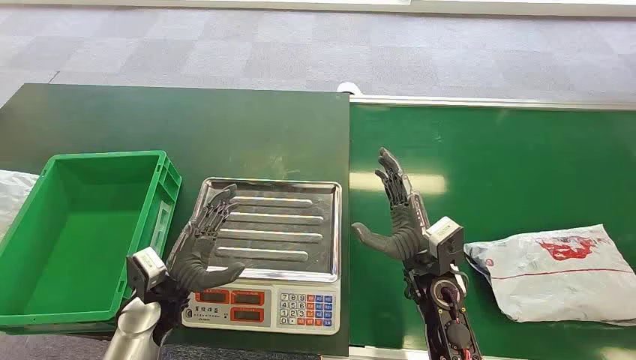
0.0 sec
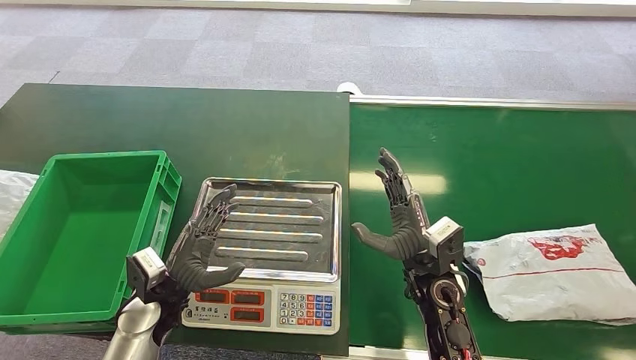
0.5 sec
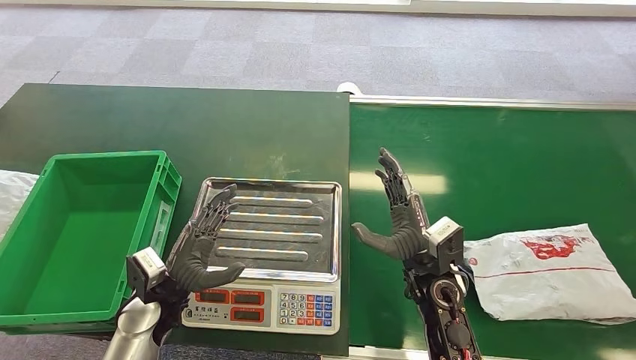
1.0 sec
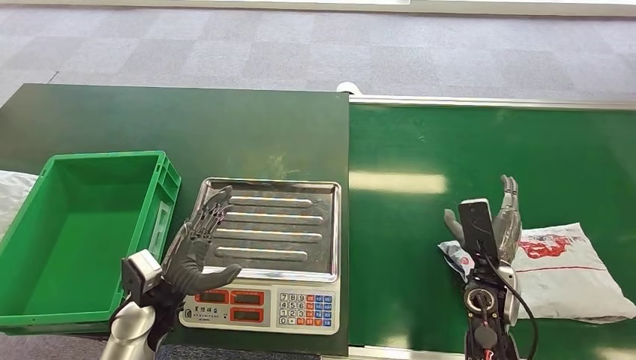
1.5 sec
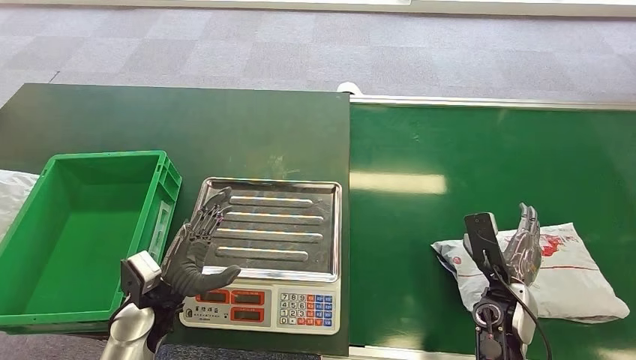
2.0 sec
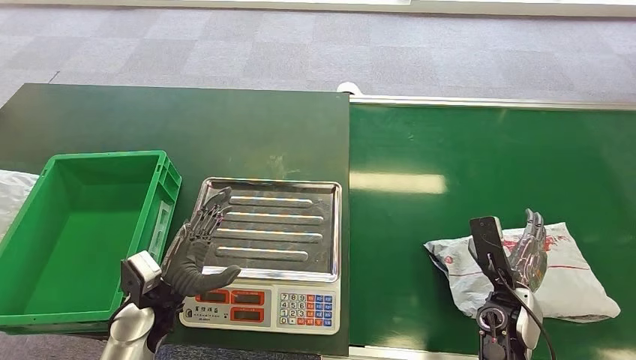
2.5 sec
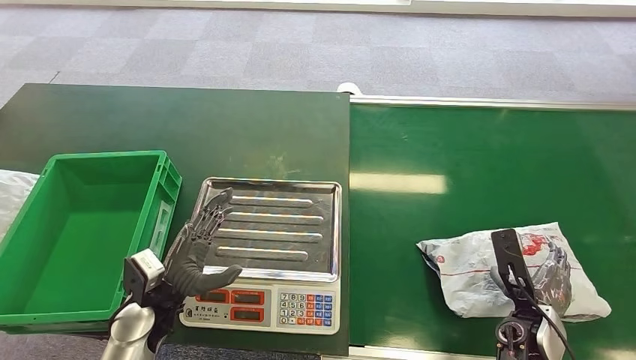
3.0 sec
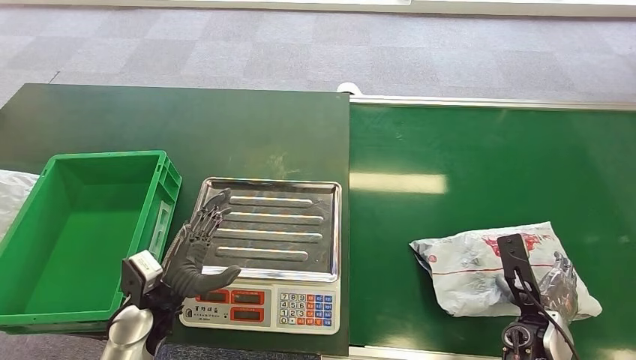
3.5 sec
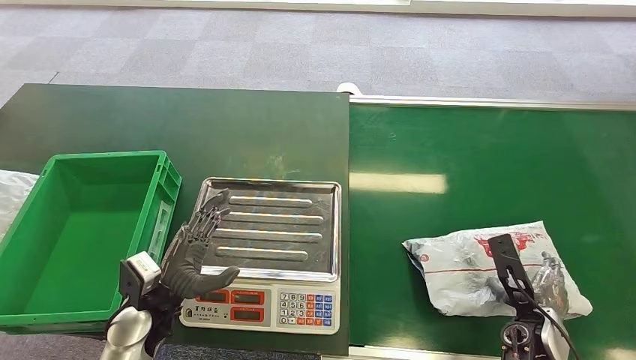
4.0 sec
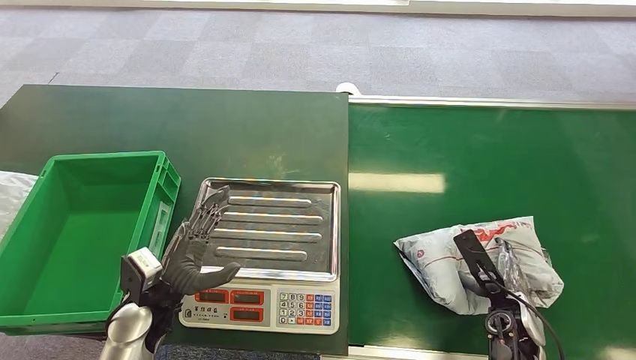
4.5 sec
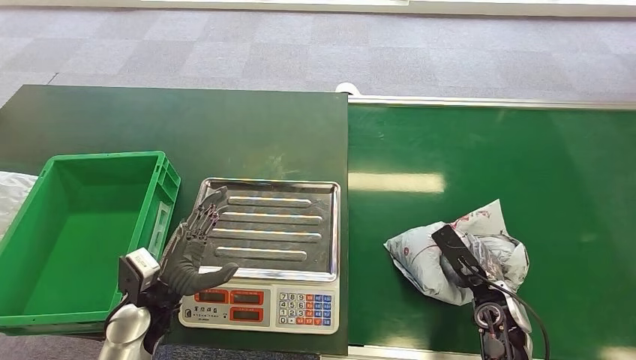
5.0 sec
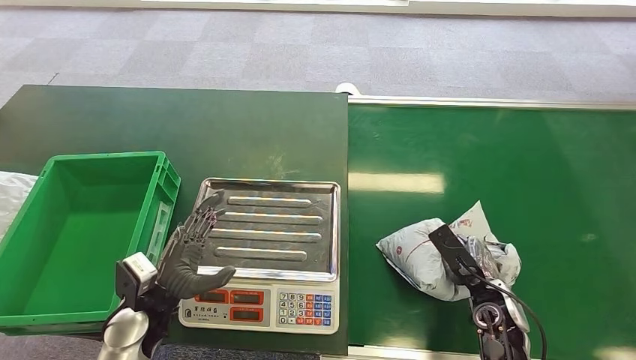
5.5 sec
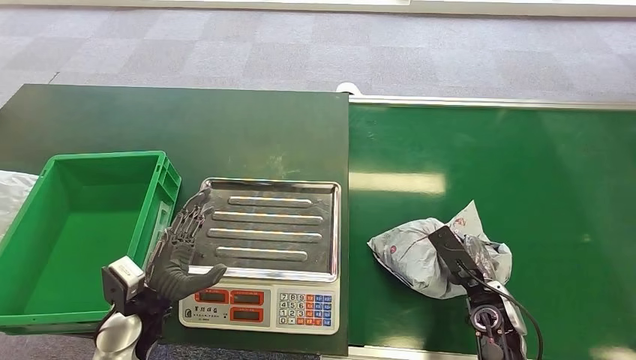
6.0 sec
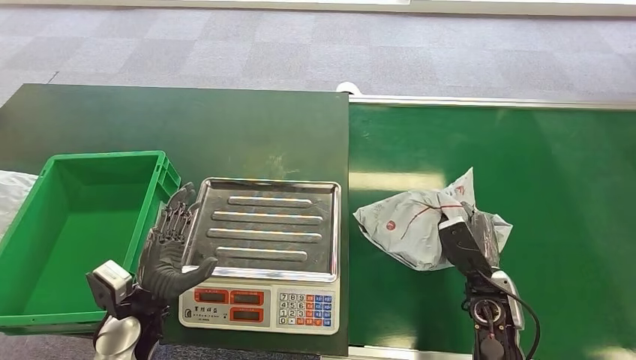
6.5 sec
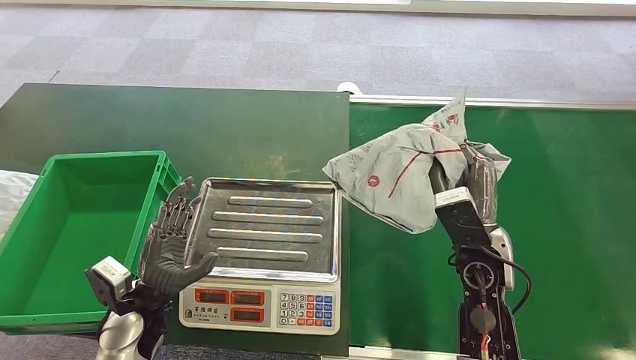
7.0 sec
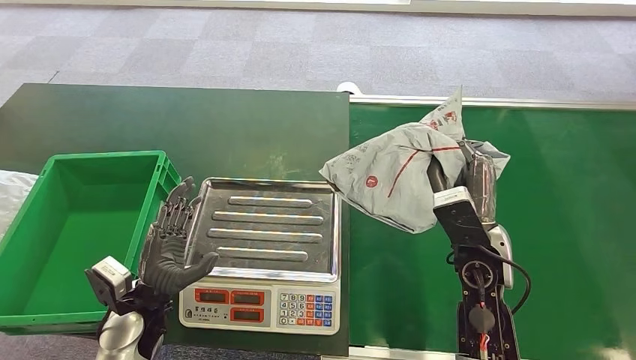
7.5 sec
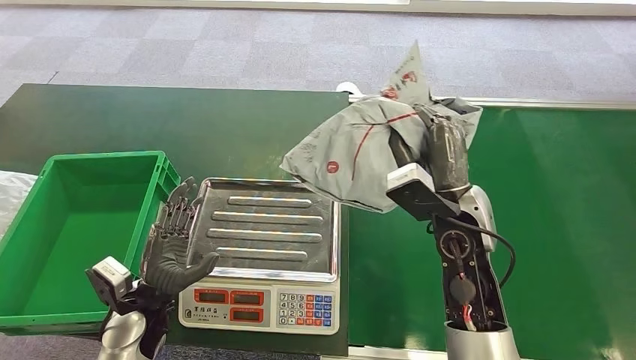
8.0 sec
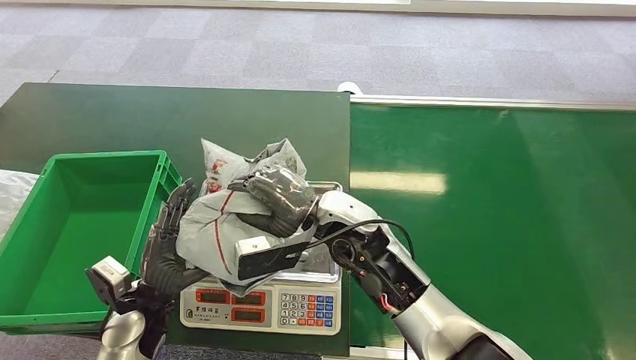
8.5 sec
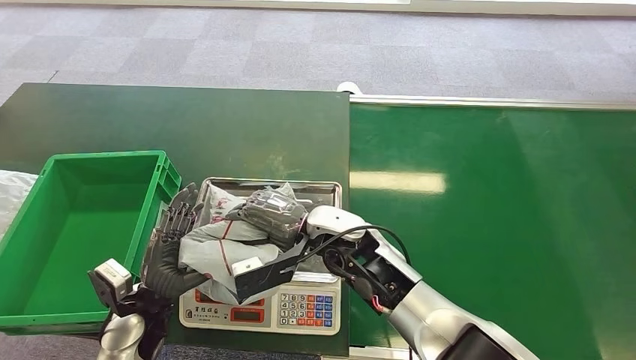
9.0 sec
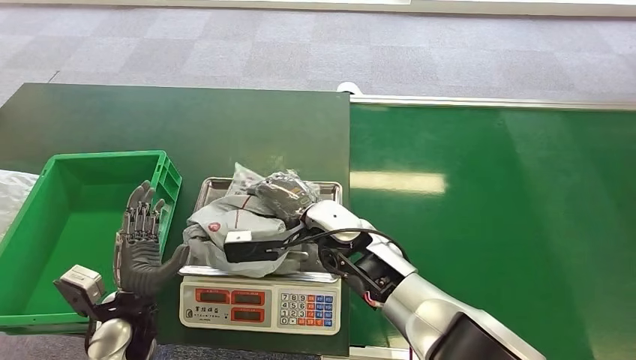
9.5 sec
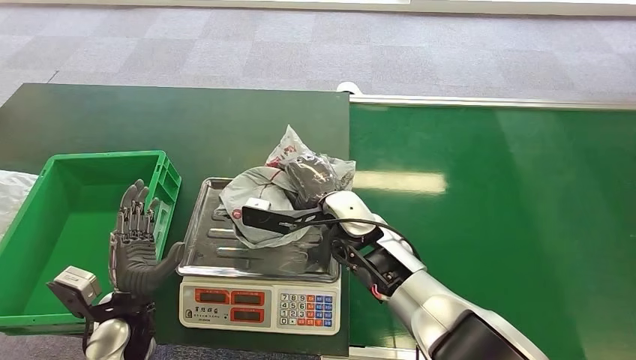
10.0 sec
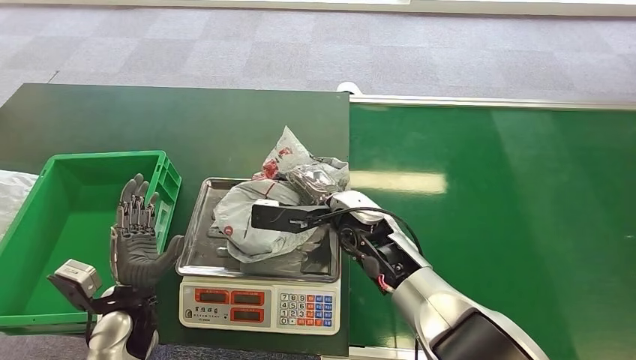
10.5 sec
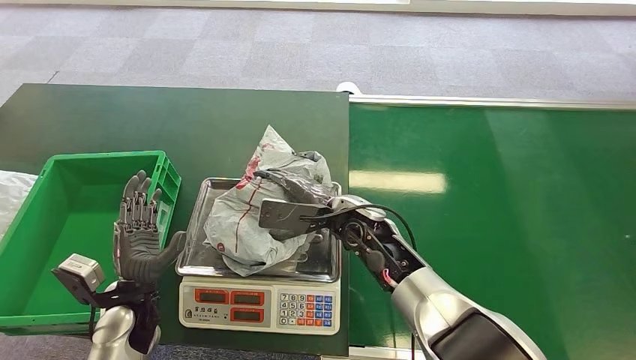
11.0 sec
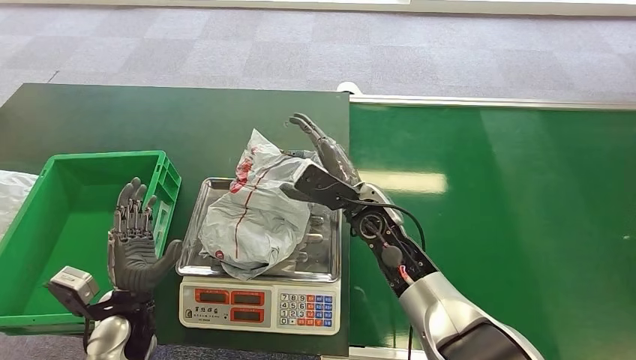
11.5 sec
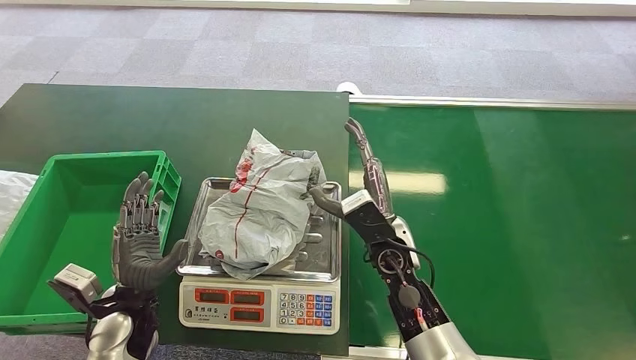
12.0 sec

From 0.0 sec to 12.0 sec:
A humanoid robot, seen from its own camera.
Task of the whole recording: Weigh the package on the weighing device and place it in the left basket.
Step, from 0.0 sec to 6.5 sec: Pick up the package from the conveyor belt.
From 2.0 sec to 4.0 sec: The right hand moves roughly 5 cm.
From 4.0 sec to 6.0 sec: The right hand changes place by some 5 cm.
From 6.0 sec to 8.0 sec: The right hand shifts approximately 20 cm upward and to the left.
From 10.0 sec to 12.0 sec: The right hand moves roughly 5 cm.

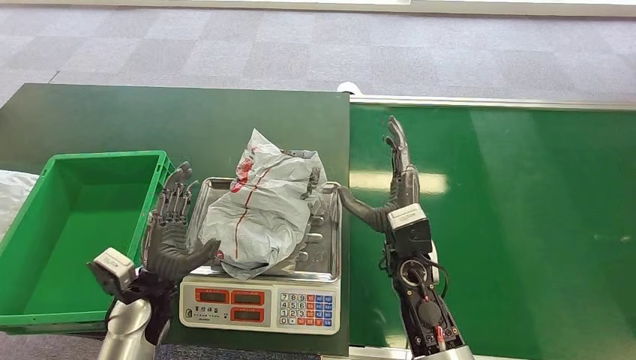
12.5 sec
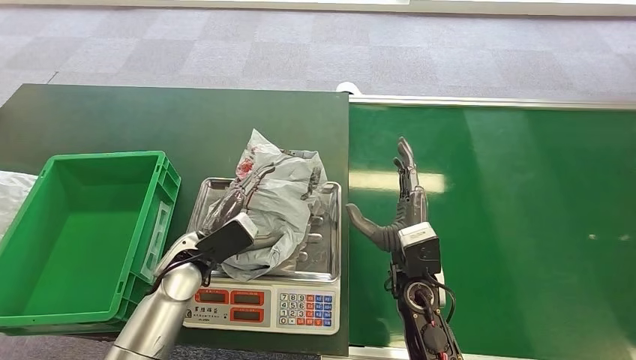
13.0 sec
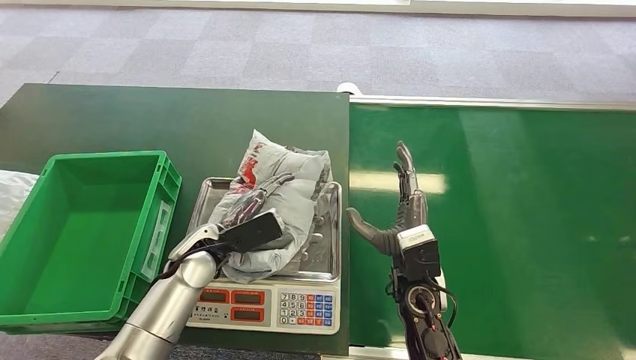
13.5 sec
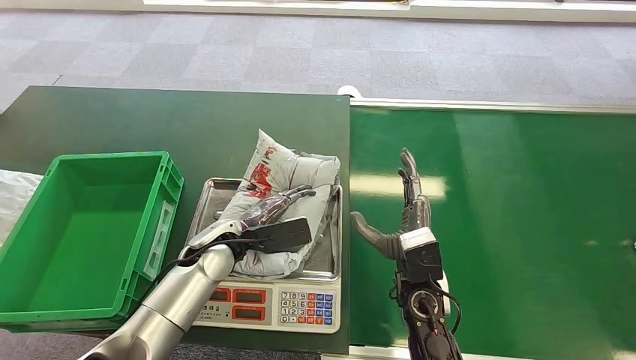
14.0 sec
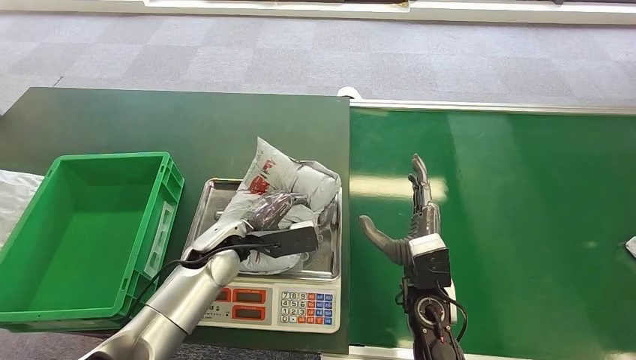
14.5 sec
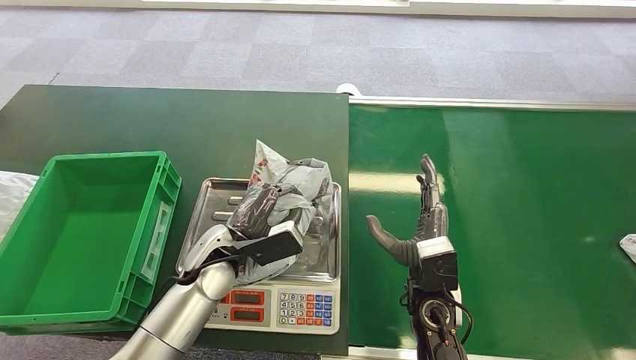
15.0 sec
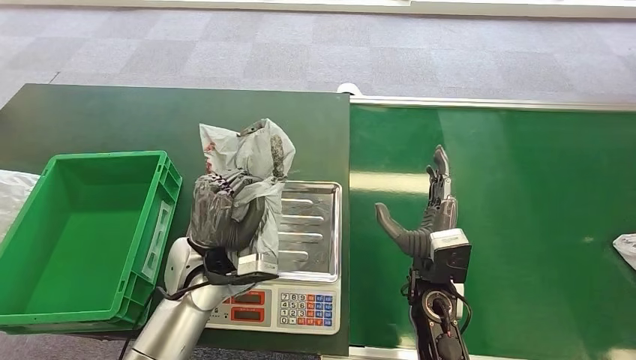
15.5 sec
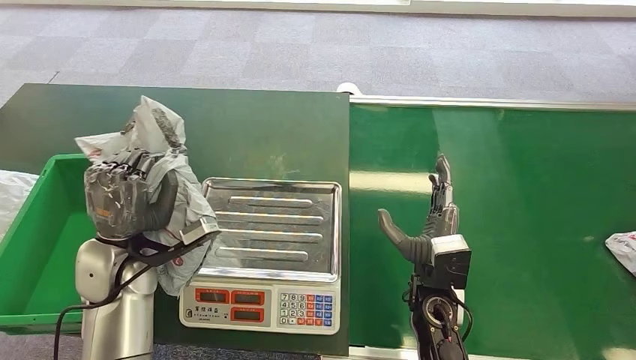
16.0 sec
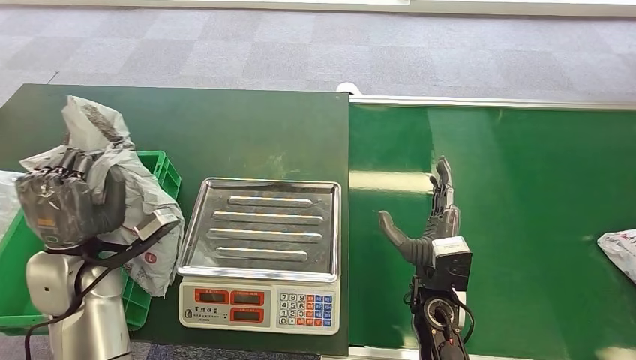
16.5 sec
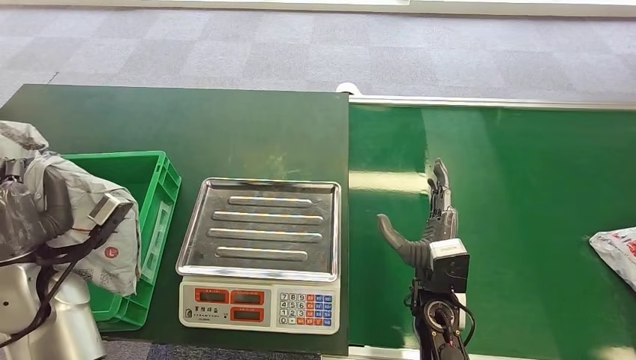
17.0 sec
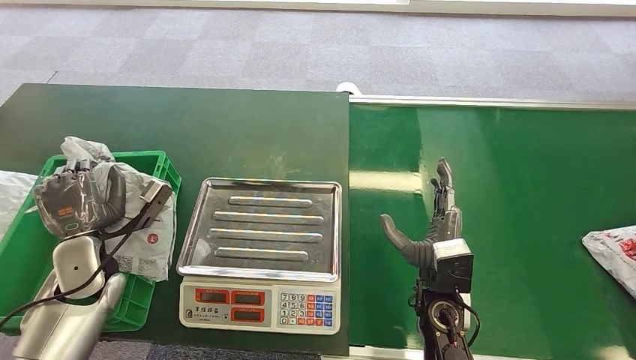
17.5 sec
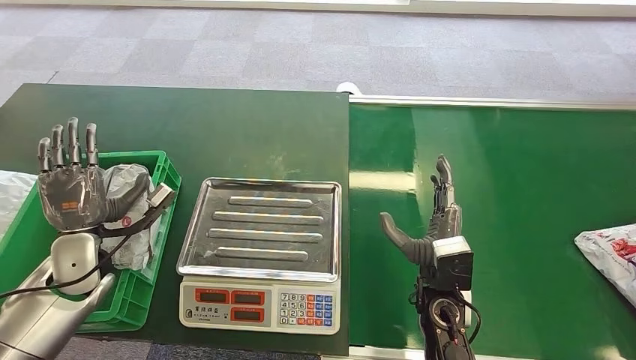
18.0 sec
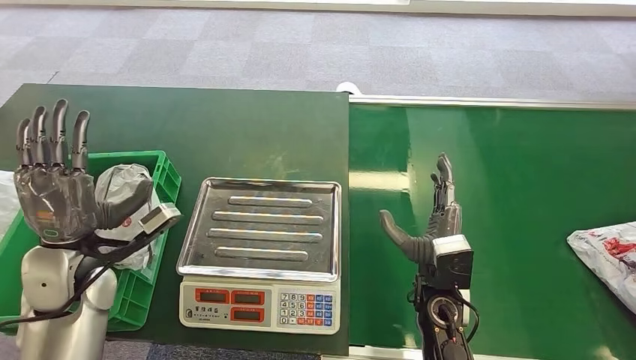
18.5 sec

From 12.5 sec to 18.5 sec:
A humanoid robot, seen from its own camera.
Task of the whole recording: Weigh the package on the weighing device and place it in the left basket.
Step, from 13.0 sec to 16.0 sec: Pick up the package from the inbound machine.
Step, from 16.5 sec to 18.5 sec: Place the package into the parcel locker.

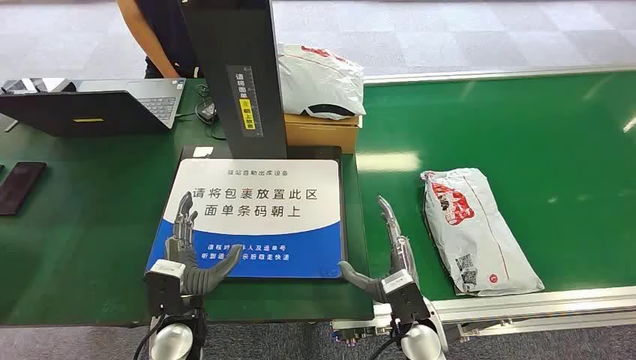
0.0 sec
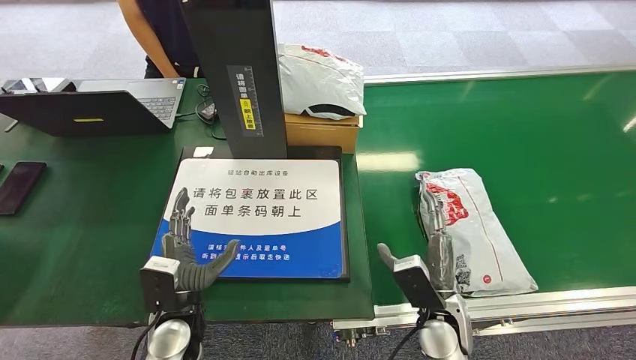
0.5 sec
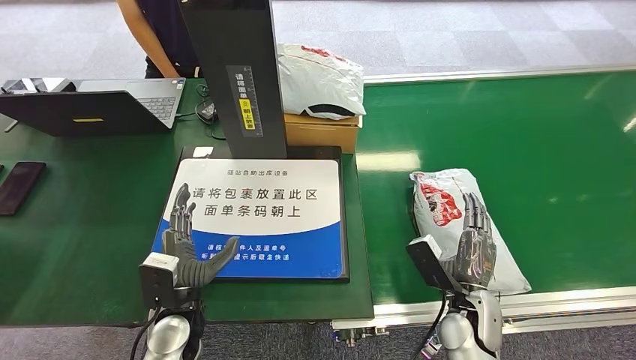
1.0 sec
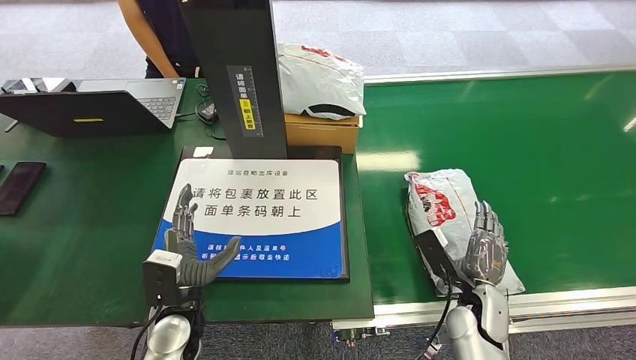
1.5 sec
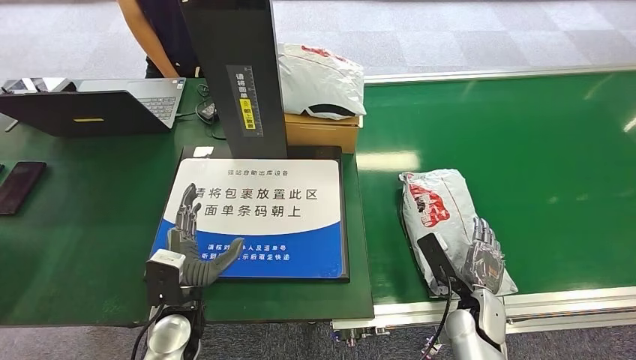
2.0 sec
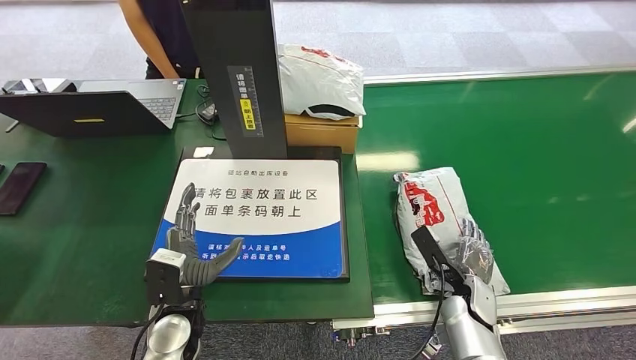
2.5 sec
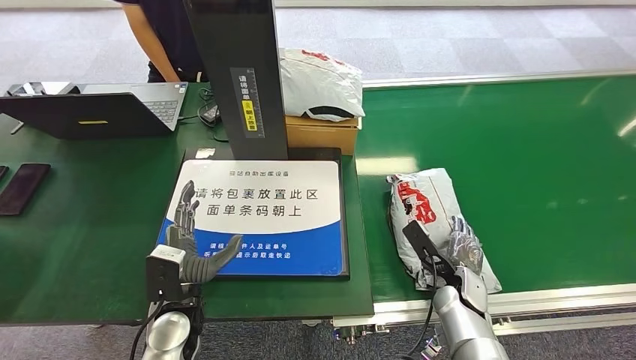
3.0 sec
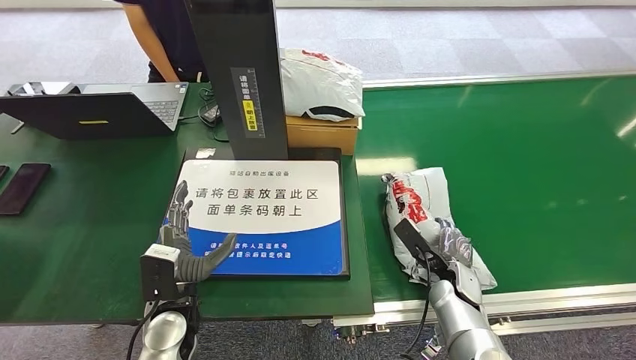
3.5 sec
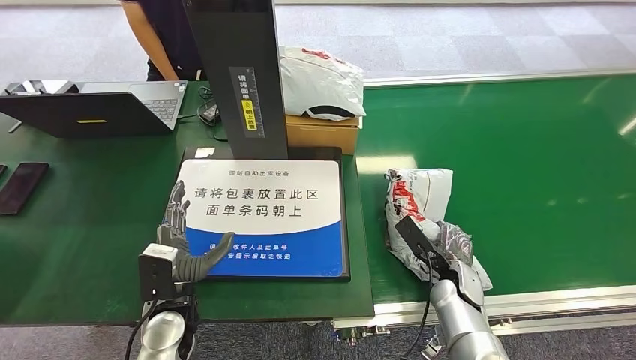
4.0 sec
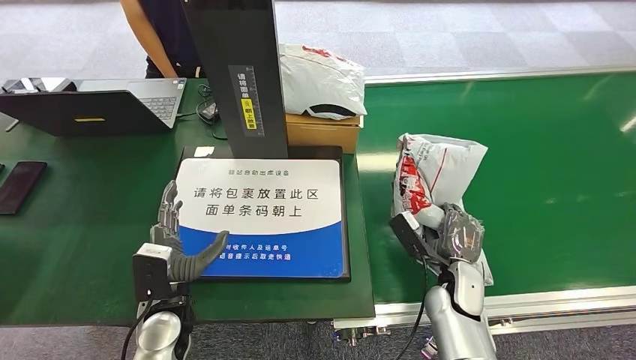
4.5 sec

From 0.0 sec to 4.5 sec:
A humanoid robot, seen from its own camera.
Task of the whole recording: Weigh the package on the weighing device and place it in the left basket.
From 2.0 sec to 4.5 sec: The right hand moves about 5 cm.
